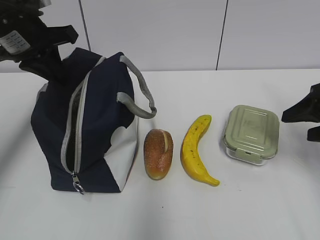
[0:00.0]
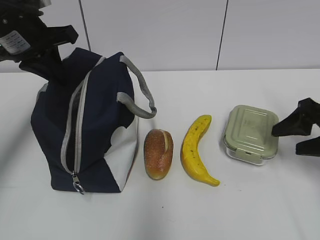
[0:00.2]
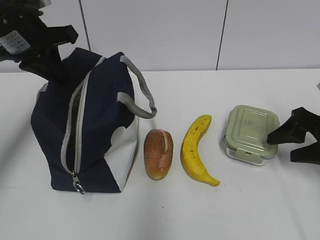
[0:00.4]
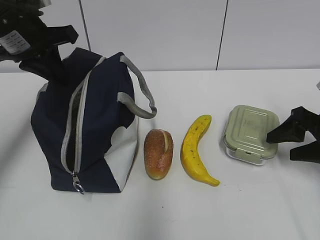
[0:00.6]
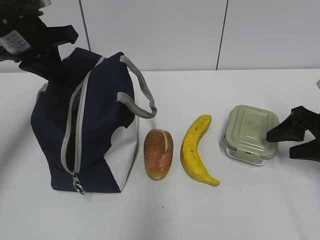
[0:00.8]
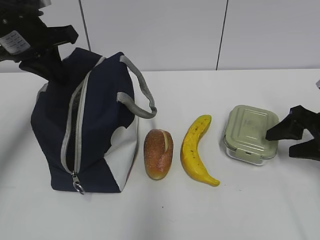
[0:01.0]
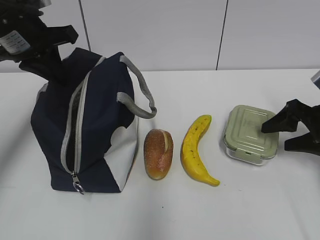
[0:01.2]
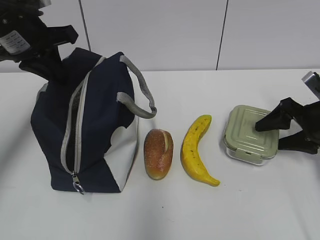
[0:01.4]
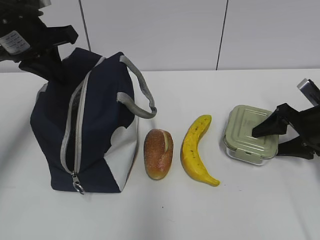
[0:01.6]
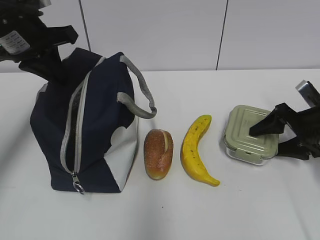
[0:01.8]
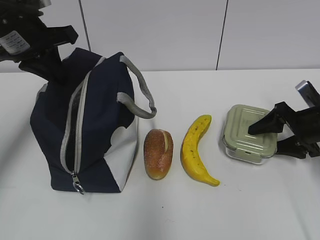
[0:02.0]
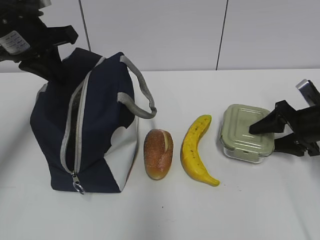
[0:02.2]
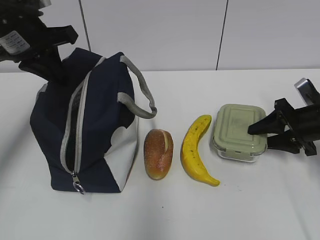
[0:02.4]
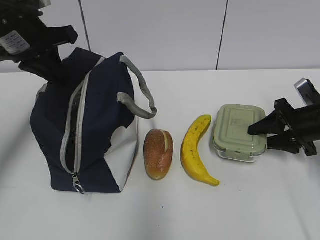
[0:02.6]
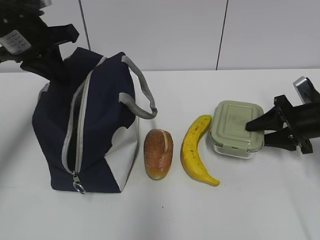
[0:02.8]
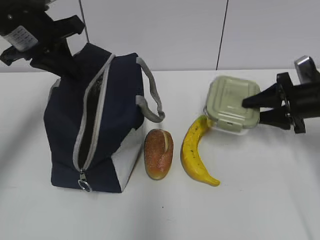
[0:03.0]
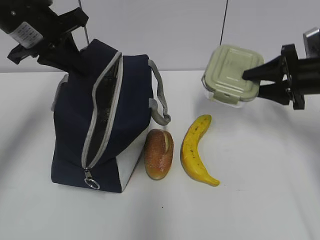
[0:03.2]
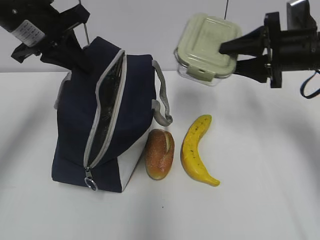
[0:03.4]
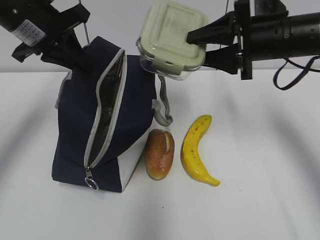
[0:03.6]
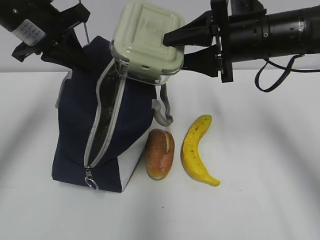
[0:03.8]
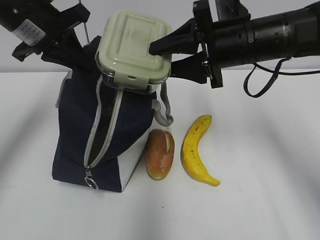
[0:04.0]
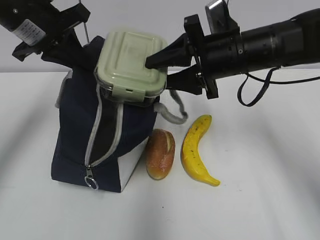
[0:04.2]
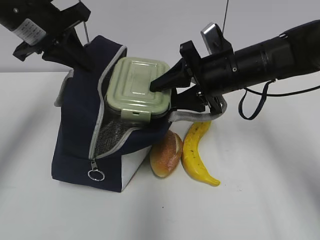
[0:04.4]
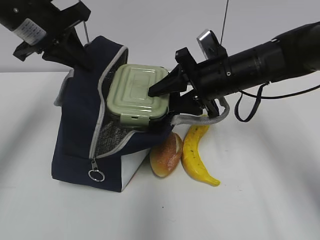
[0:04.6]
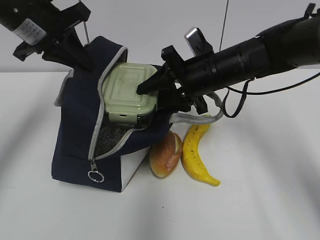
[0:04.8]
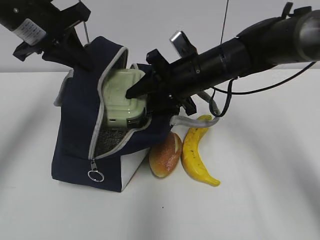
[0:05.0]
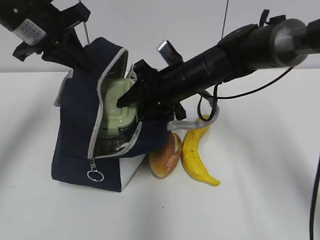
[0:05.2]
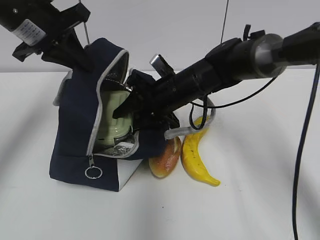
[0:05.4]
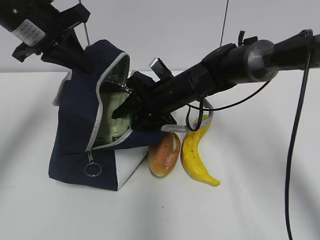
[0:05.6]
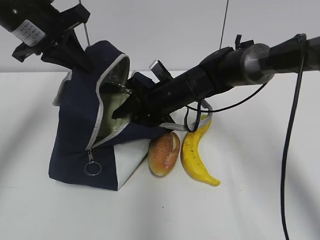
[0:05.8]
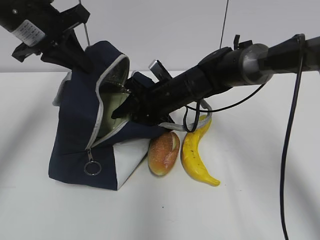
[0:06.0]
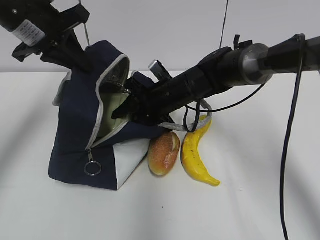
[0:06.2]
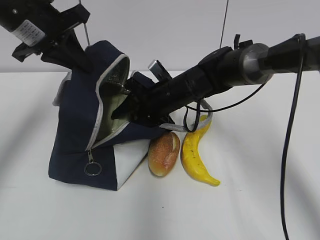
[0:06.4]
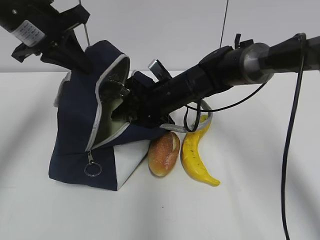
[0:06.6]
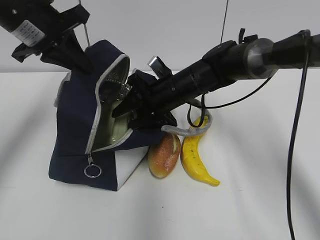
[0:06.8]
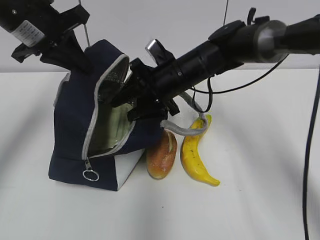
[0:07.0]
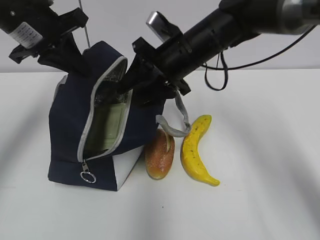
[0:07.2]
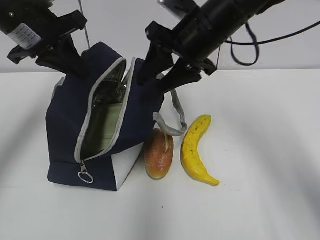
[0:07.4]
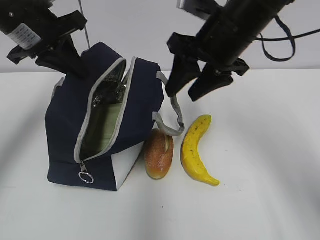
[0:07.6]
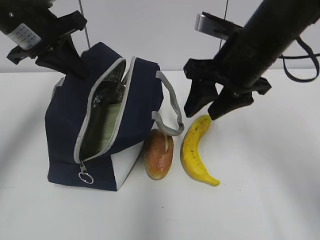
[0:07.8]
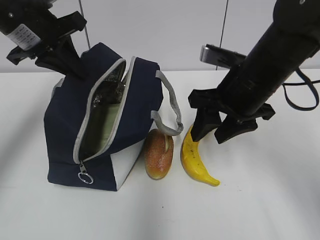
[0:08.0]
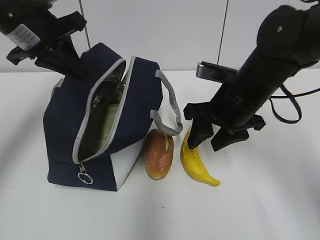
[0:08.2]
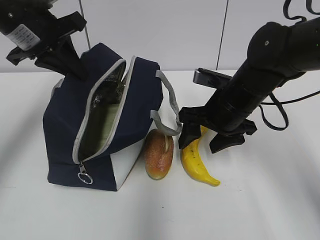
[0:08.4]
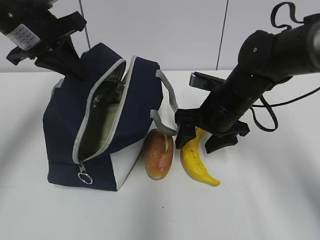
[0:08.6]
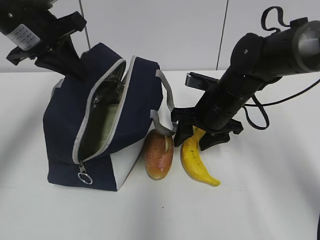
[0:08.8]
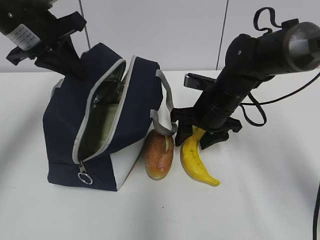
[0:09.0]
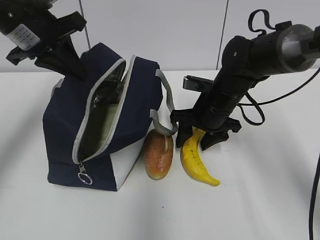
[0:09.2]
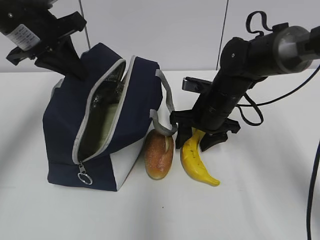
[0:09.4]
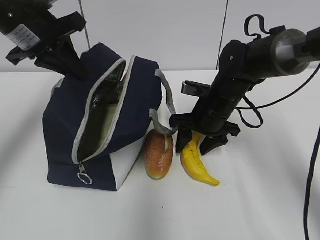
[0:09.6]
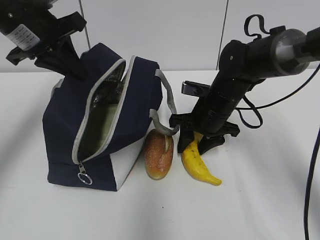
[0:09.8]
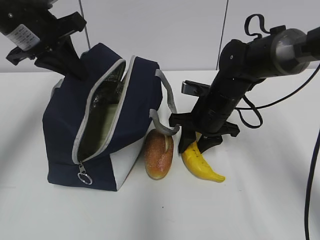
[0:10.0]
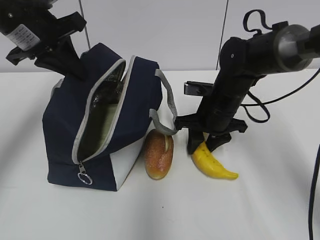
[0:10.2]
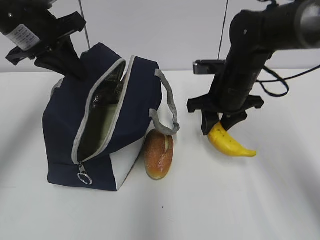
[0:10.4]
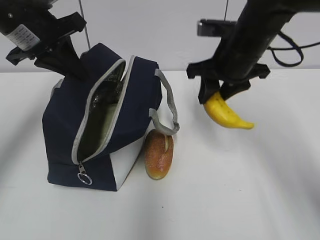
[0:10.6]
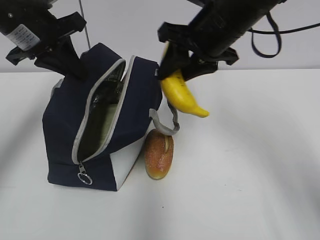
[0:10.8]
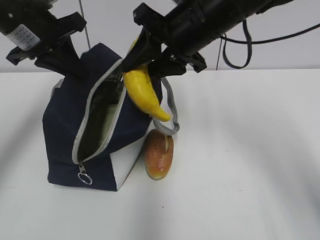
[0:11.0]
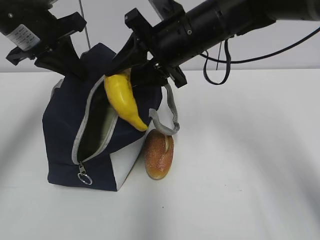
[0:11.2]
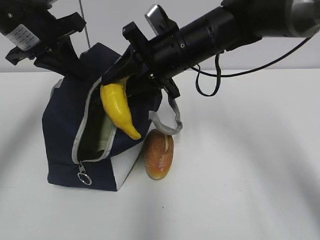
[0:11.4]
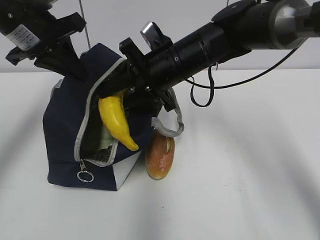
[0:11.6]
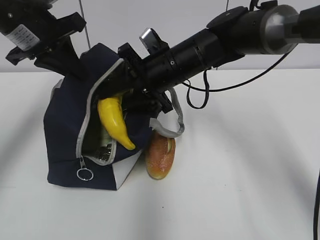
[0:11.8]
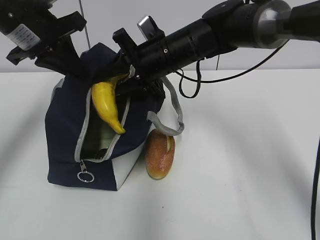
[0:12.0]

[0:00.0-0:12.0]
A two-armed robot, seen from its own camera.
Step, 0:00.0 to 0:02.4: Grab the lunch box with your right hand.
Step, 0:04.8 to 0:07.2: Place it into the bag with your right hand.
Step, 0:07.4 to 0:09.8: Grab the banana with your right hand.
0:00.0 to 0:01.6: The right gripper moves downward and forward, some 10 cm.
0:01.6 to 0:03.0: The right gripper closes.
0:03.0 to 0:04.4: The right gripper is displaced to the left and upward by roughly 20 cm.
0:04.4 to 0:06.0: The right gripper travels to the left, downward and forward by approximately 15 cm.
0:06.0 to 0:07.6: The right gripper shifts some 20 cm upward, backward and to the right.
0:07.6 to 0:09.0: The right gripper moves downward, roughly 15 cm.
0:09.0 to 0:10.4: The grippers make only small movements.
0:10.4 to 0:12.0: The right gripper travels to the left and upward by about 10 cm.

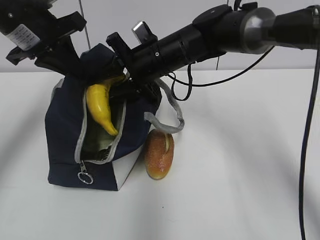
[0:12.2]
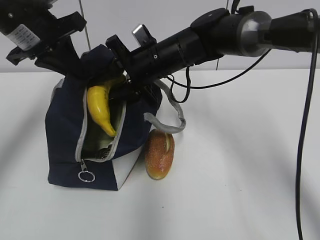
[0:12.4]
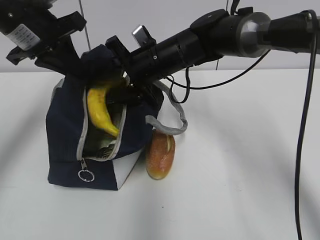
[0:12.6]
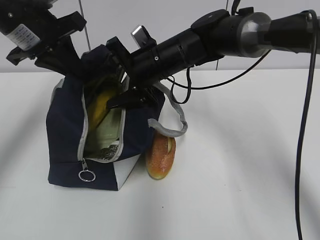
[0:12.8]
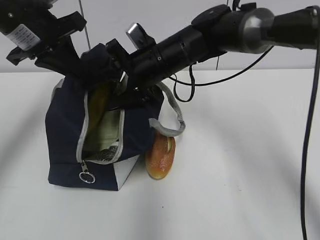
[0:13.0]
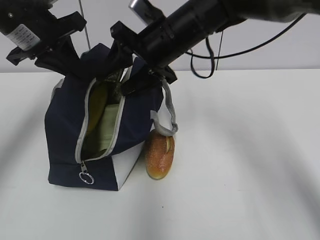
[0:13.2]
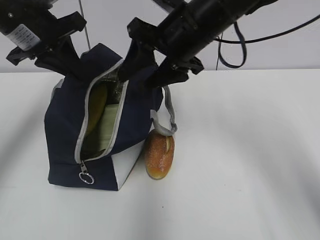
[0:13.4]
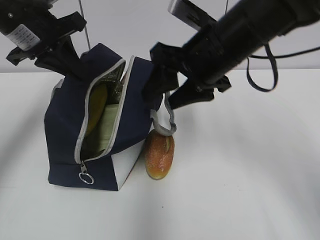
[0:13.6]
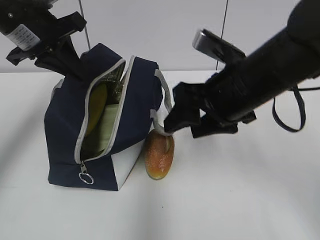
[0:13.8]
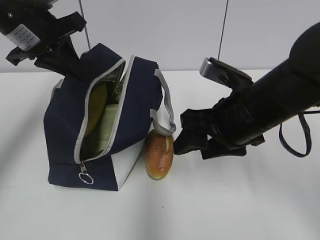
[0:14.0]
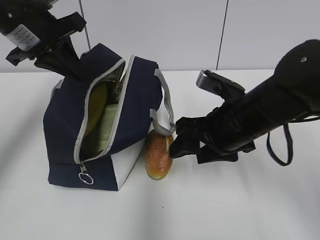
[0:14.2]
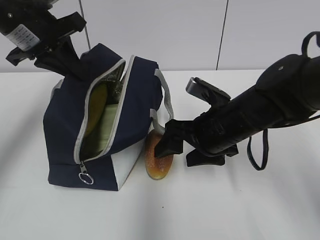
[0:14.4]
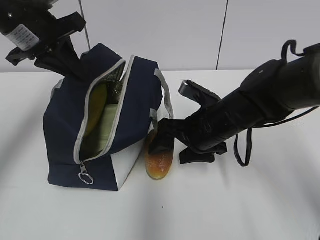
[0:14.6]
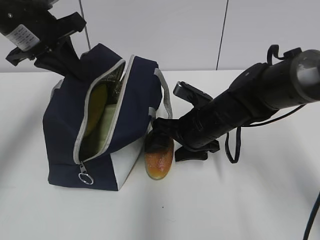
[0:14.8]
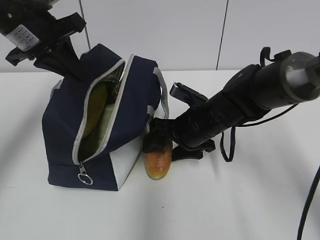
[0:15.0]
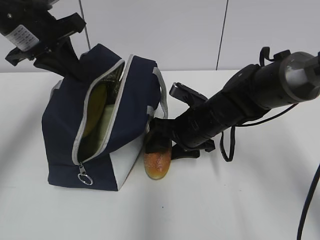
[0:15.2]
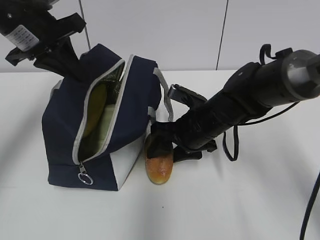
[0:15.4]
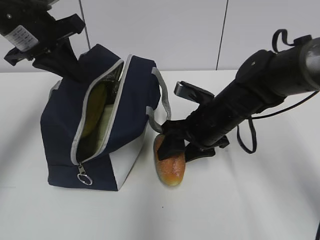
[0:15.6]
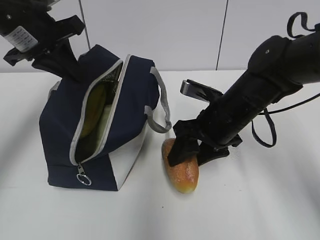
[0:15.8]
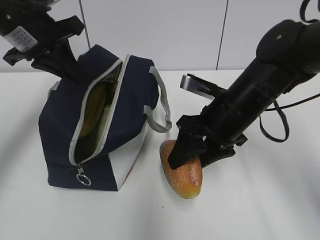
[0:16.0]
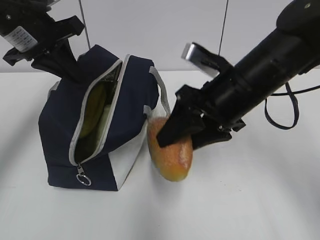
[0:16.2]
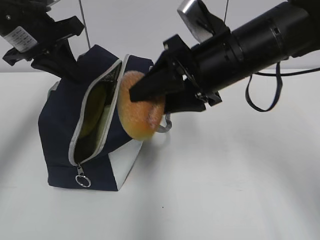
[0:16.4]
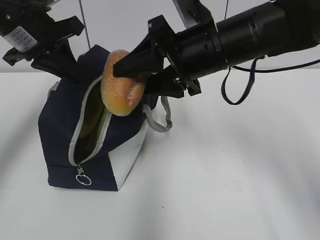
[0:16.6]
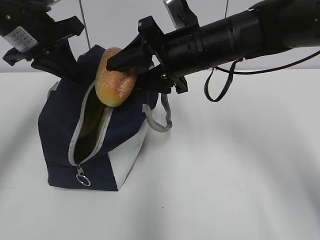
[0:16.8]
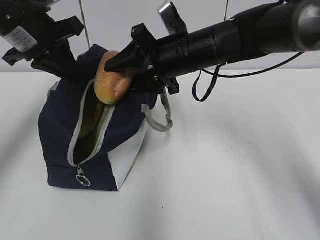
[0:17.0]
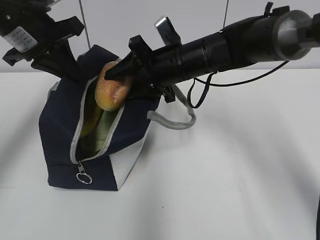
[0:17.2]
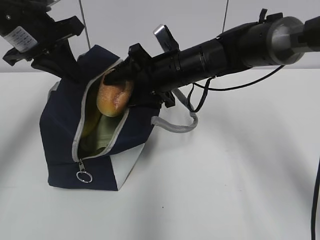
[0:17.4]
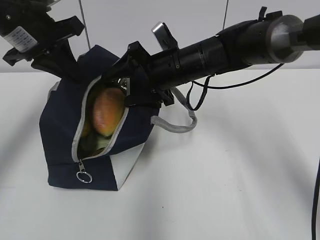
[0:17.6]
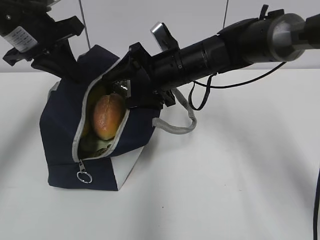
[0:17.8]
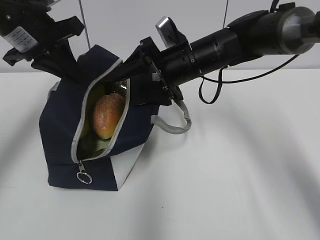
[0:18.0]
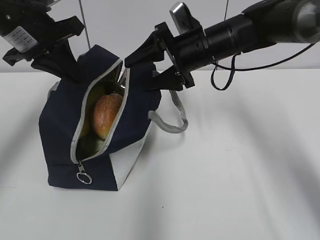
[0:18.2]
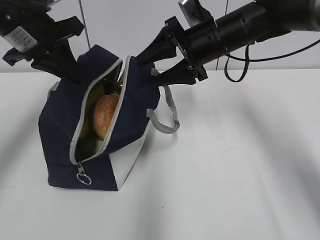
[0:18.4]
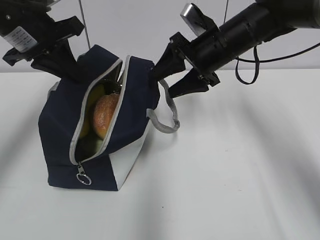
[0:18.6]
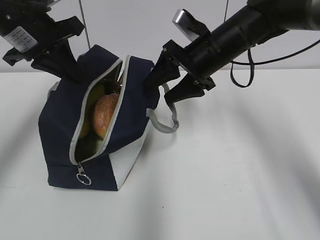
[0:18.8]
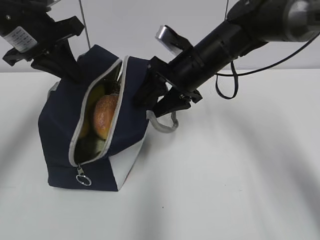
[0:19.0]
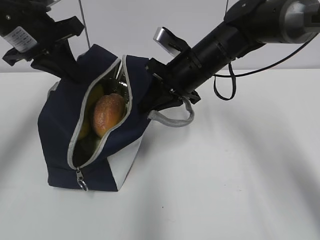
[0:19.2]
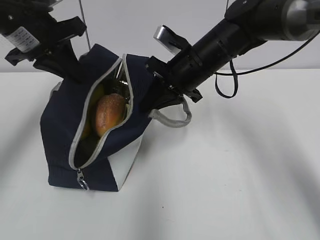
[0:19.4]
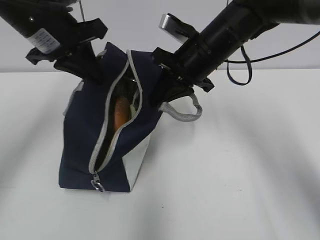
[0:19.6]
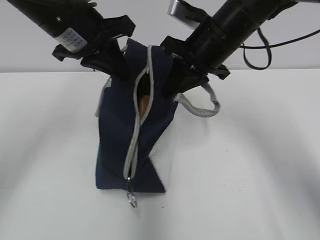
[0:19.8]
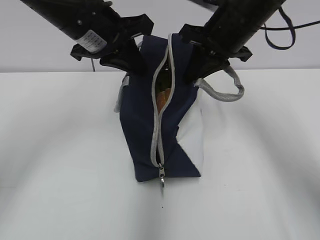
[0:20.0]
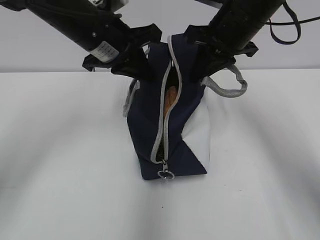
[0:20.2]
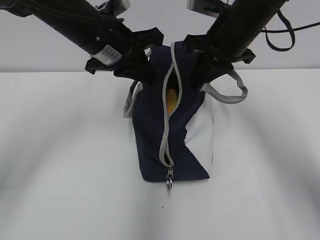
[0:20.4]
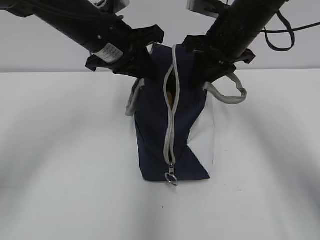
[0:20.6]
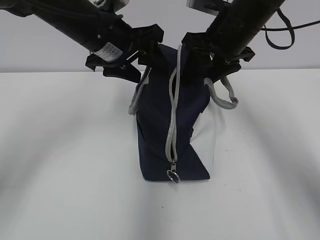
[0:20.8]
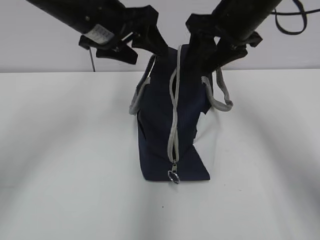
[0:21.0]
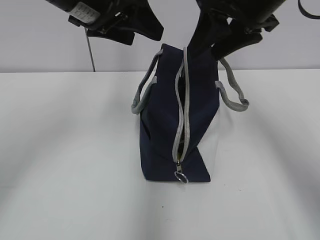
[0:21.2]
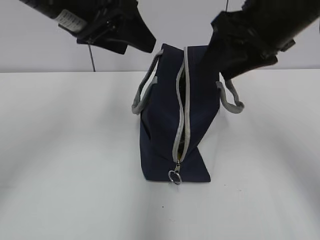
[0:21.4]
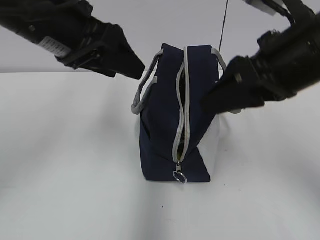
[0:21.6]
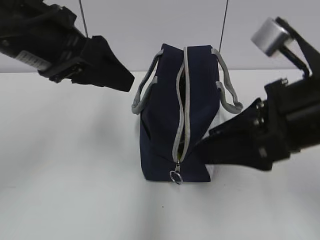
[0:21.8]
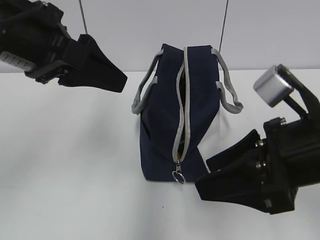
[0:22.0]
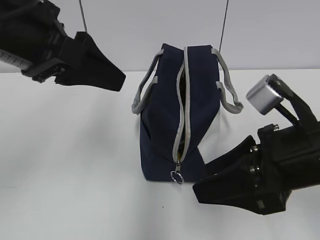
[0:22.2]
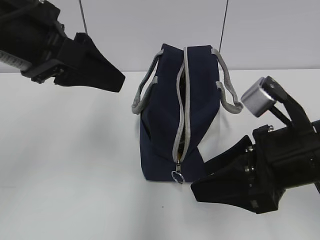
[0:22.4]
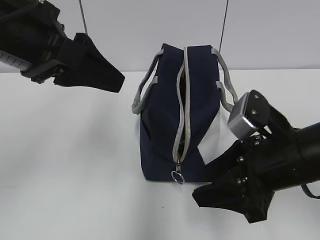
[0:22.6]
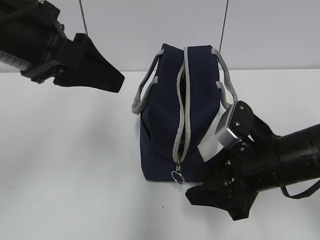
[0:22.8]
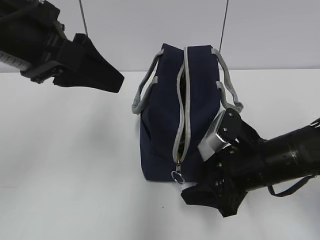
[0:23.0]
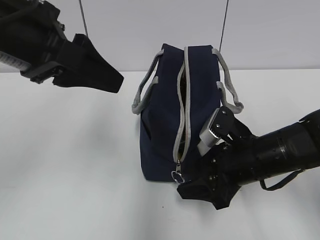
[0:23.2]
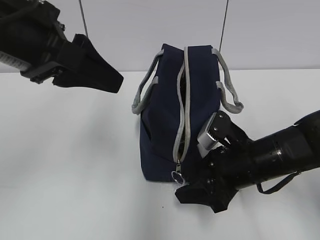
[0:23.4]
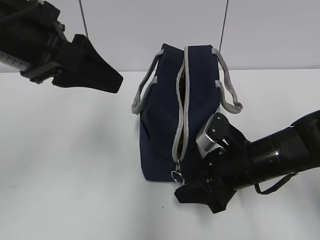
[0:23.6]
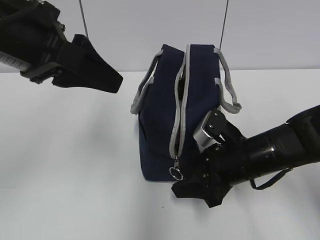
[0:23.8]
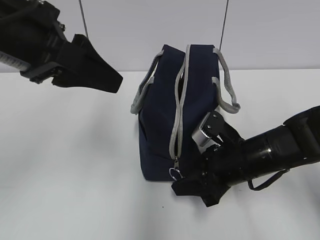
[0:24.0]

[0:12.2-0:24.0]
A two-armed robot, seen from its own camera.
Step, 0:13.6 to 0:15.0: Grab the bread with your right hand.
Step, 0:16.8 to 0:17.8: Place it into the bag with your right hand.
Step, 0:18.4 to 0:19.6: Grab the lunch bag with your right hand.
Step, 0:19.8 to 0:20.4: Move the lunch bag to the right.
0:12.2 to 0:13.6: The right gripper goes approximately 15 cm backward, upward and to the right.
0:13.6 to 0:15.2: The right gripper travels downward by some 15 cm.
0:15.2 to 0:16.6: The right gripper travels upward by approximately 15 cm.
0:16.6 to 0:18.2: The right gripper travels forward by some 10 cm.
0:18.2 to 0:19.6: The right gripper closes up.
0:19.6 to 0:21.0: The left gripper shifts some 5 cm to the right, and opens up. The right gripper travels upward by about 5 cm, and opens.
0:21.0 to 0:22.6: The left gripper is displaced backward and to the left by roughly 15 cm. Meanwhile the right gripper travels backward and downward by roughly 20 cm.
0:22.6 to 0:24.0: The right gripper goes some 10 cm downward and forward.
